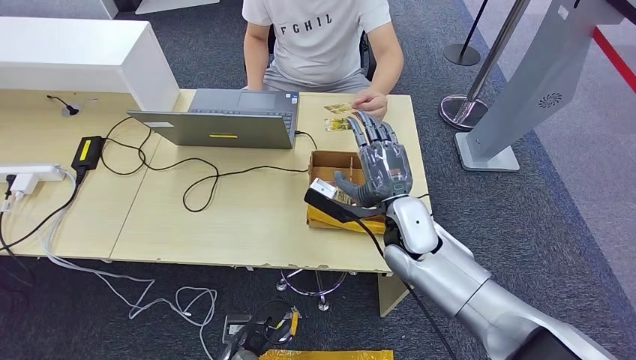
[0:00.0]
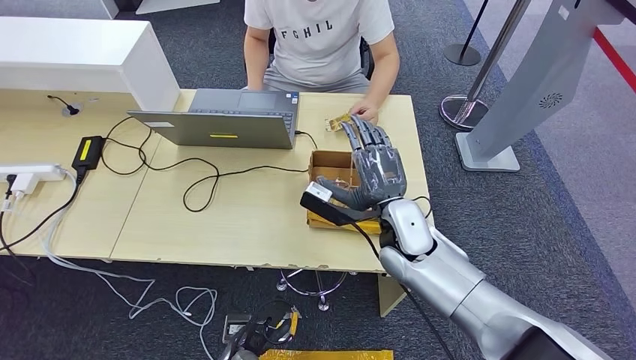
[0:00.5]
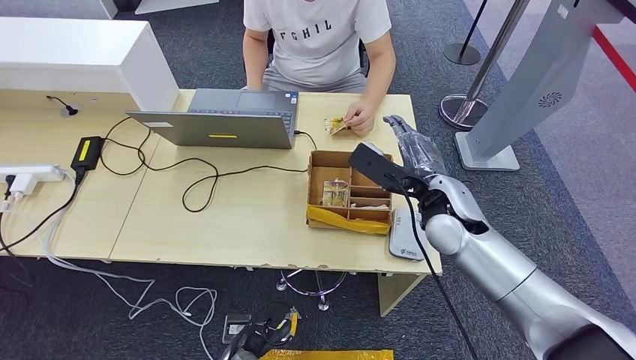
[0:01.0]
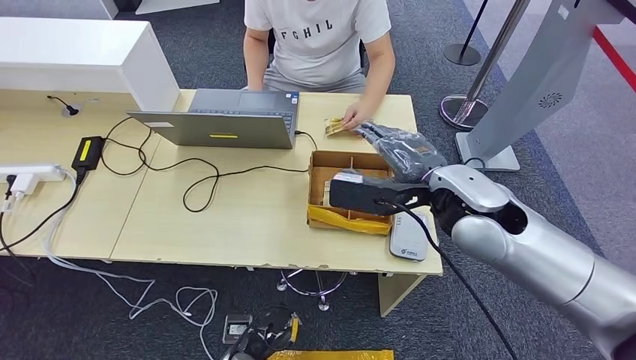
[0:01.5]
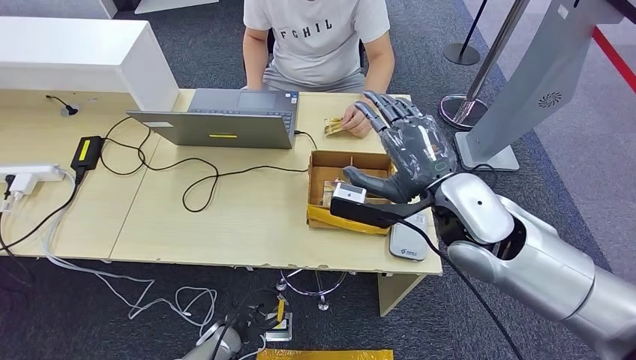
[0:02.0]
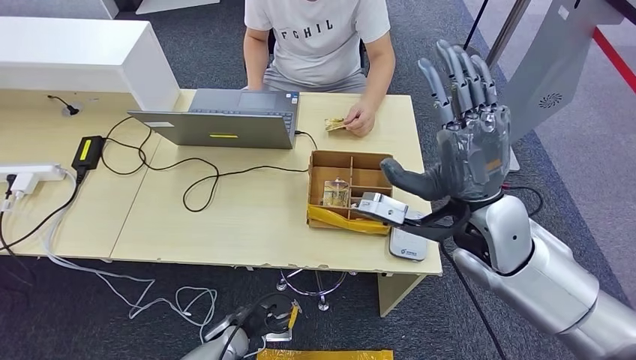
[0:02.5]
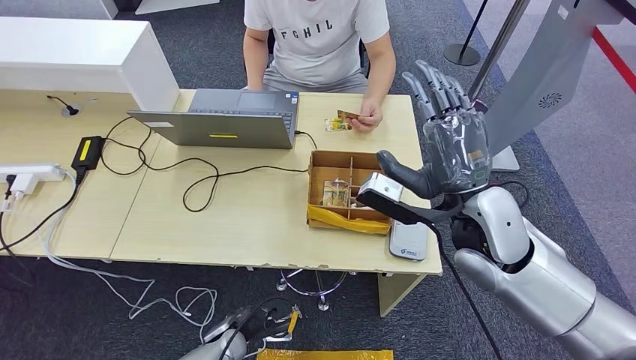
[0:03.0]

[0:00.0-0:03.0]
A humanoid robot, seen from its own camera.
Step, 0:00.0 to 0:03.0: Hand the room key to the person.
0:00.0 to 0:01.5: The right hand moves upward, roughly 15 cm.
0:01.5 to 0:03.0: The left hand changes place by approximately 5 cm.
